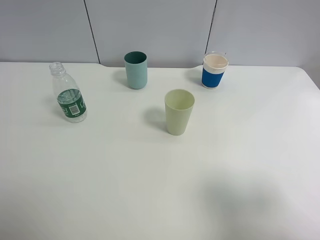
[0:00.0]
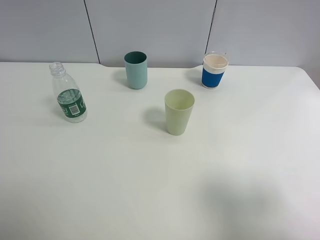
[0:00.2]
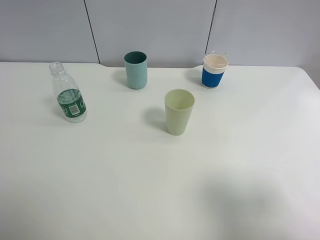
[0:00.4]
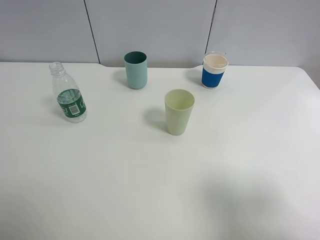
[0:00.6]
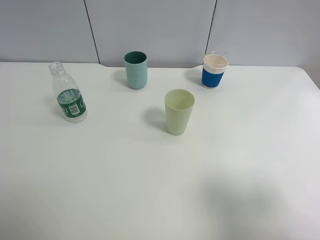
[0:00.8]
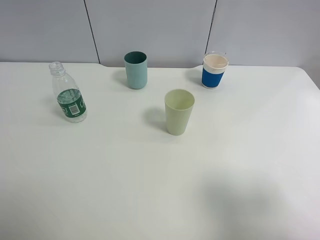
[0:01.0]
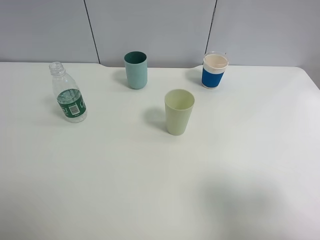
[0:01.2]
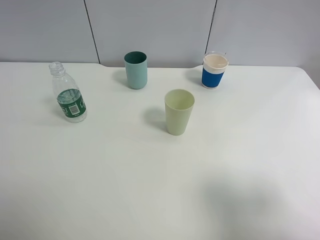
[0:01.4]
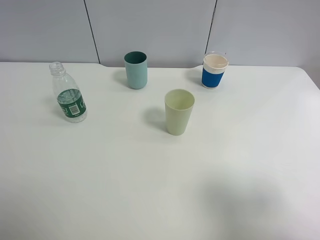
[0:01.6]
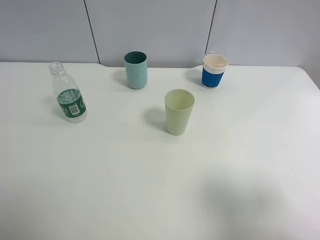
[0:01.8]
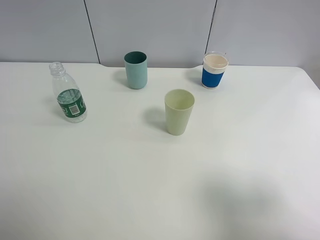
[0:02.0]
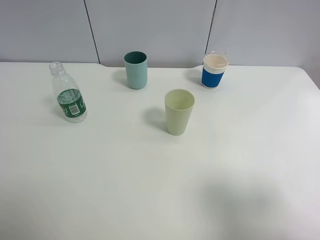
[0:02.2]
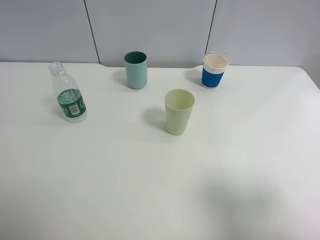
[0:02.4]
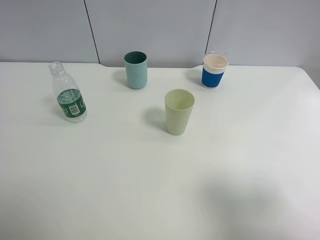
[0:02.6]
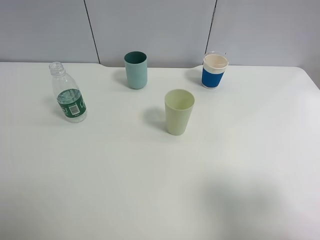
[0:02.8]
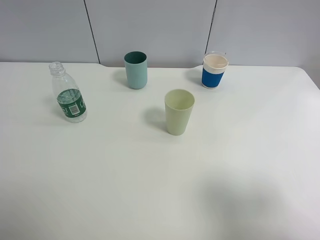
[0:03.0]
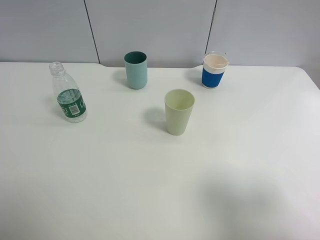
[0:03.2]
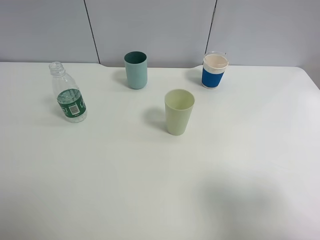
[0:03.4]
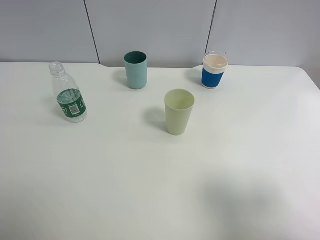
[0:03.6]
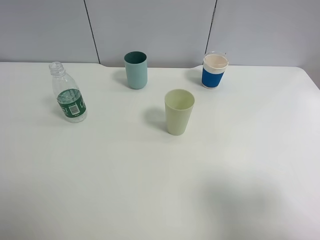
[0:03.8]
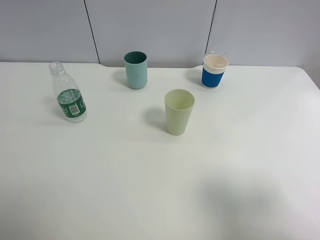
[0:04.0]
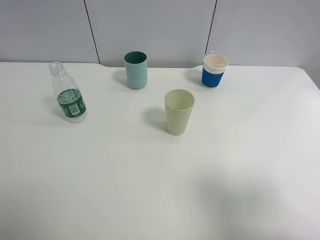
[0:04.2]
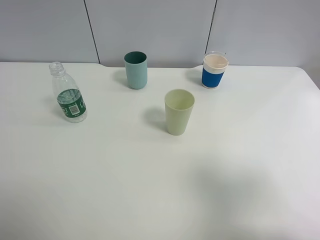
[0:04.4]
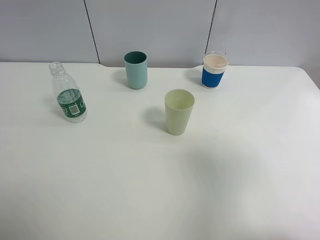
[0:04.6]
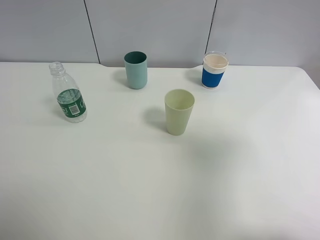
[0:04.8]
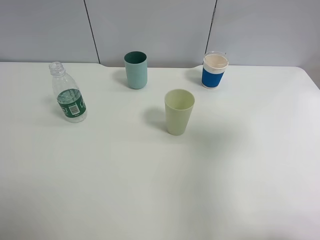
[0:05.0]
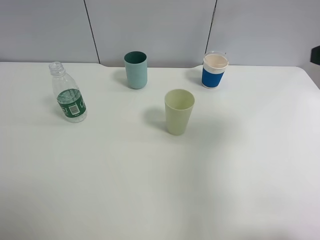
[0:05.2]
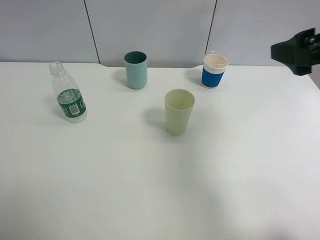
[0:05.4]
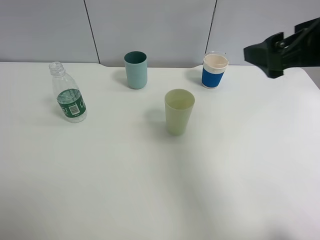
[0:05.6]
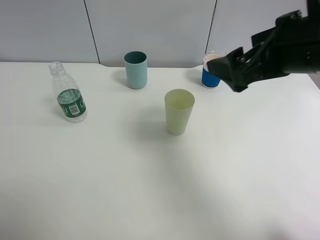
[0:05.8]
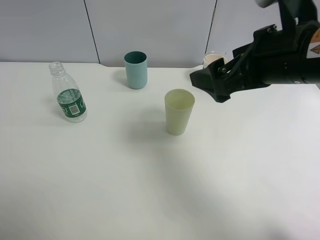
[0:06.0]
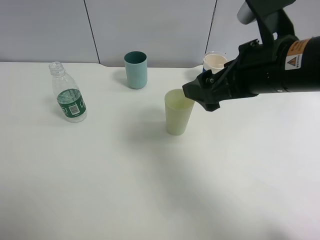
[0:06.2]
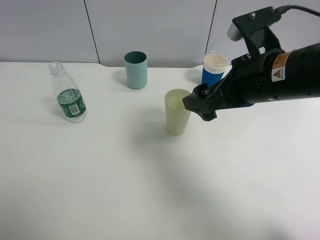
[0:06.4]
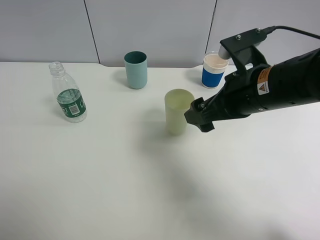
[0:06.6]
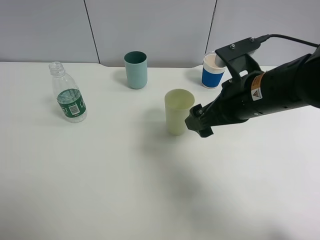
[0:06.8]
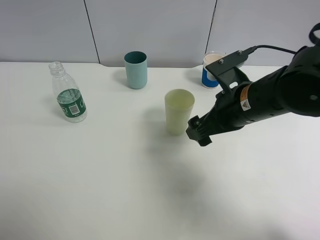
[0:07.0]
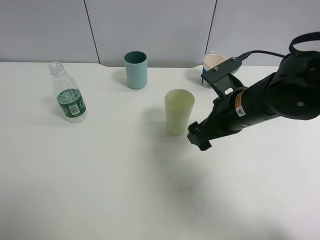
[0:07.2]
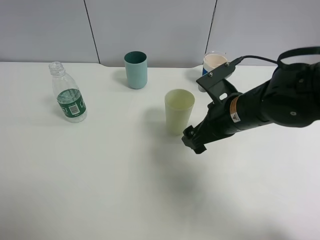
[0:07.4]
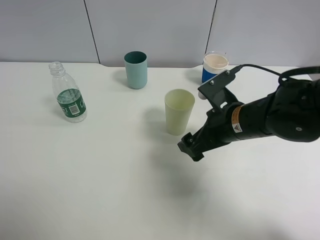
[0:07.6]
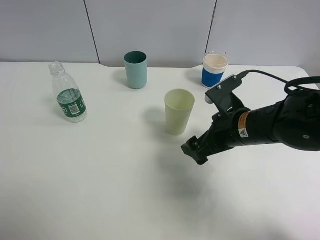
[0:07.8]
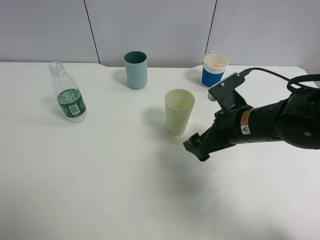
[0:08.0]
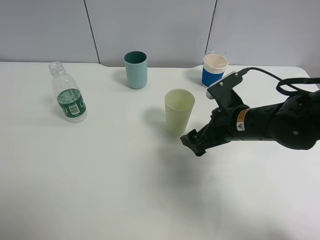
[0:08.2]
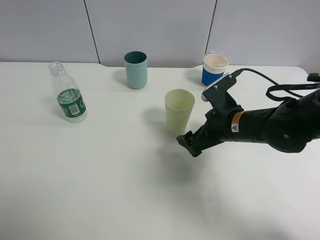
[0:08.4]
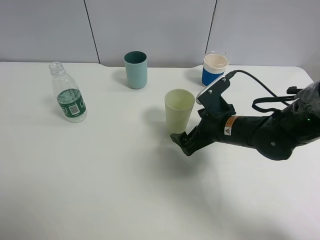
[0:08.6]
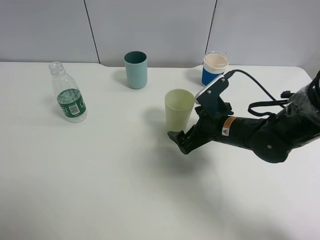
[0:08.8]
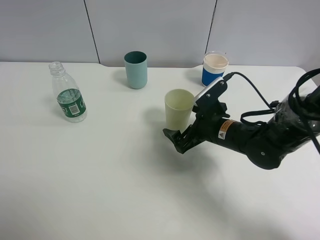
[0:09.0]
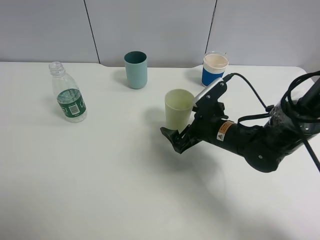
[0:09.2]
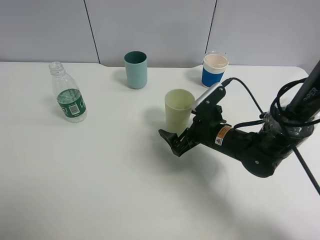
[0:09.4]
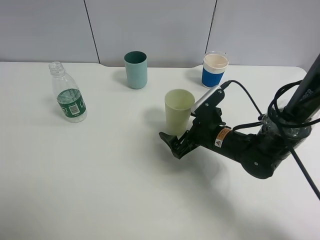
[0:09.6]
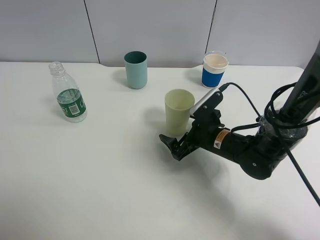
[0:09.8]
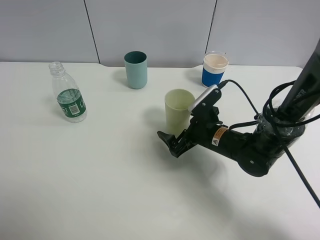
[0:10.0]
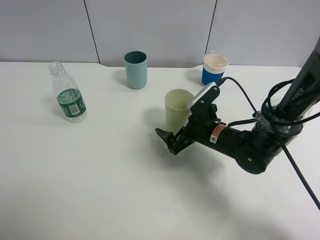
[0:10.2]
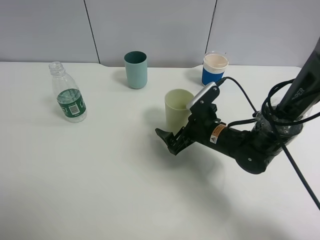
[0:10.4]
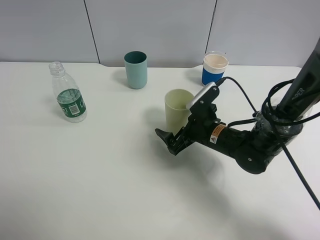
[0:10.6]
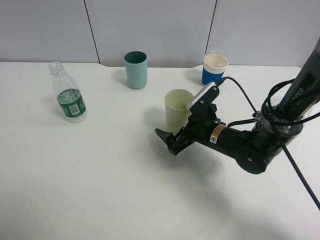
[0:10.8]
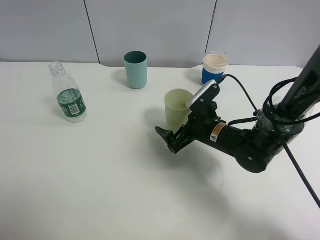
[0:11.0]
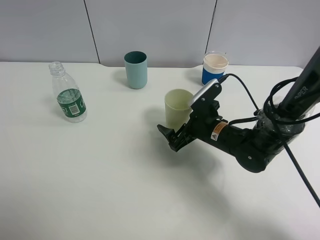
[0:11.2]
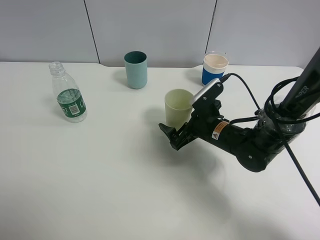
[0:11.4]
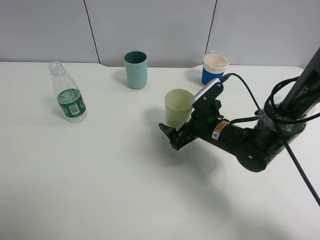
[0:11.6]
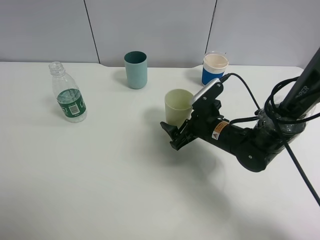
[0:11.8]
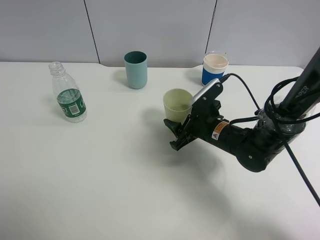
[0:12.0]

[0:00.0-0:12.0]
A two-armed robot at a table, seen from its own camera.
Task of the whole recording: use a clamp to hold the bottle of the drink, pour the beverage into a random cup, then clamp the cup containing the drink and pour the drink into another random cup.
0:04.4 to 0:06.0: The right gripper shifts approximately 20 cm forward and to the left.
0:06.0 to 0:07.6: The right gripper is displaced downward by some 15 cm.
0:07.6 to 0:09.0: The right gripper shifts some 5 cm downward.
0:09.0 to 0:10.4: The grippers make only small movements.
0:10.4 to 0:12.0: The right gripper closes its fingers.

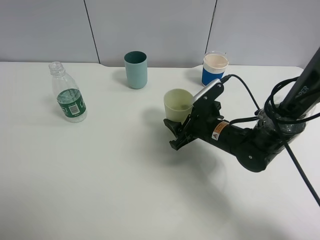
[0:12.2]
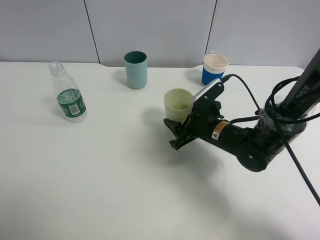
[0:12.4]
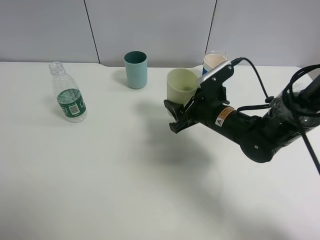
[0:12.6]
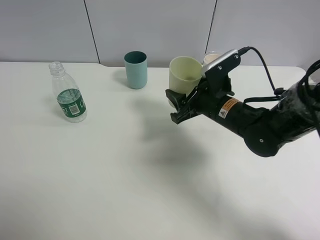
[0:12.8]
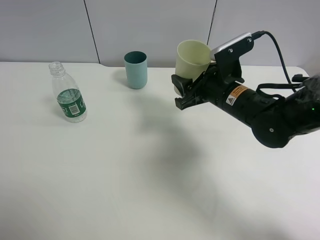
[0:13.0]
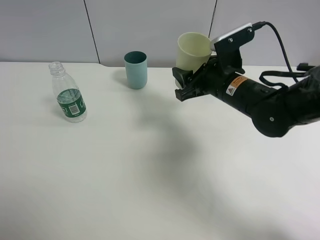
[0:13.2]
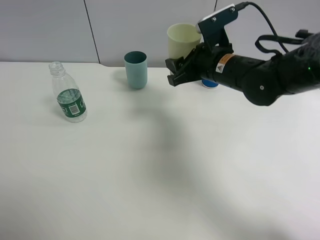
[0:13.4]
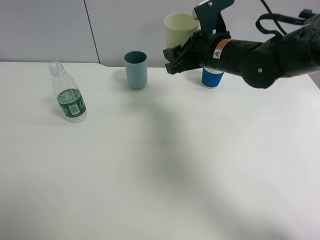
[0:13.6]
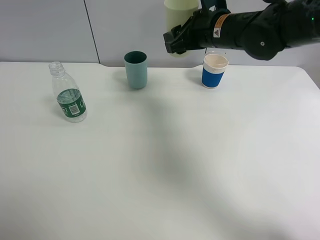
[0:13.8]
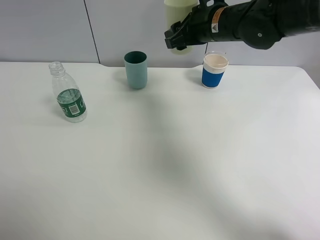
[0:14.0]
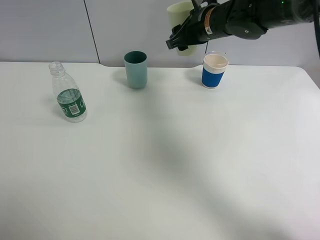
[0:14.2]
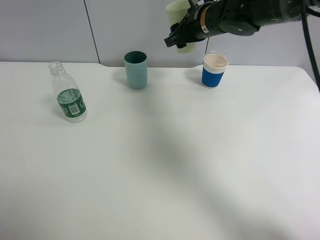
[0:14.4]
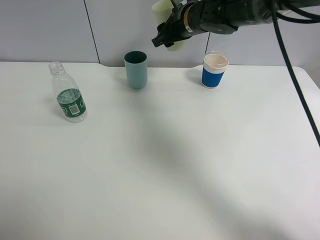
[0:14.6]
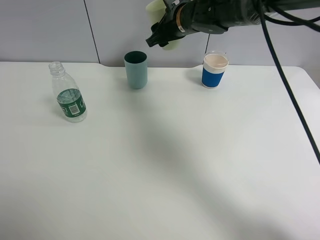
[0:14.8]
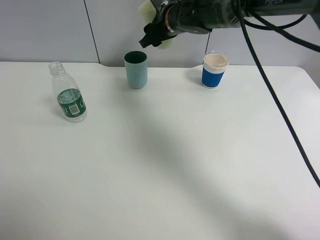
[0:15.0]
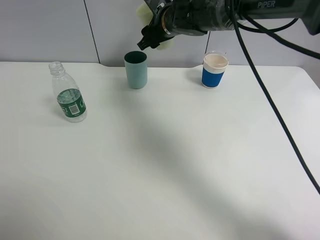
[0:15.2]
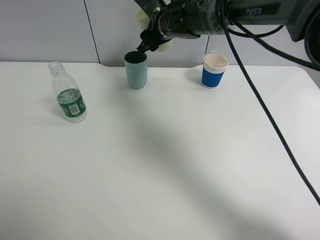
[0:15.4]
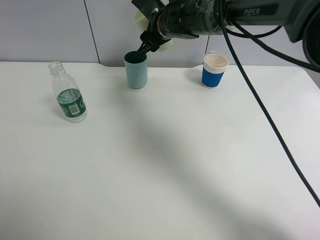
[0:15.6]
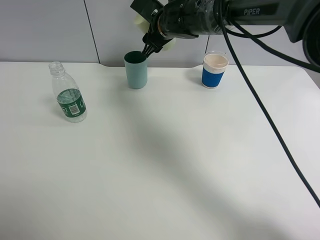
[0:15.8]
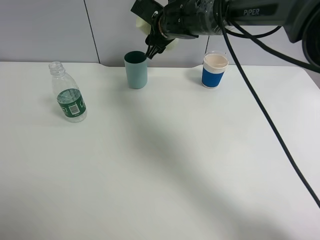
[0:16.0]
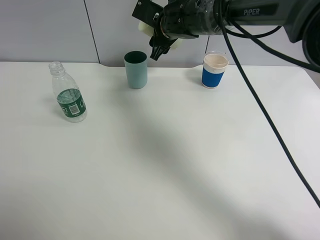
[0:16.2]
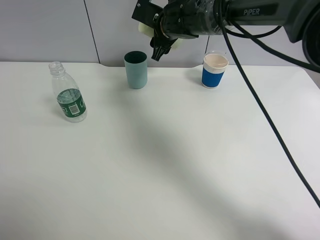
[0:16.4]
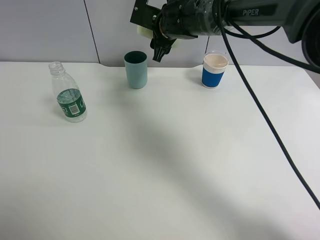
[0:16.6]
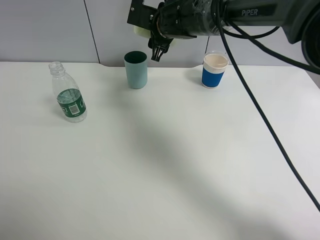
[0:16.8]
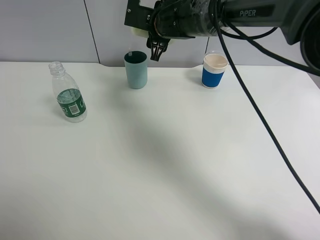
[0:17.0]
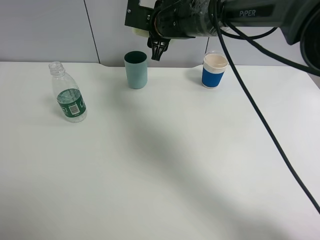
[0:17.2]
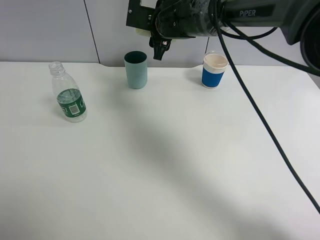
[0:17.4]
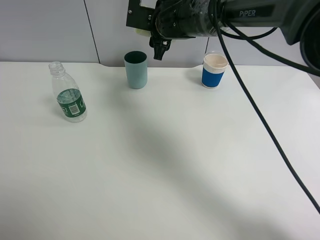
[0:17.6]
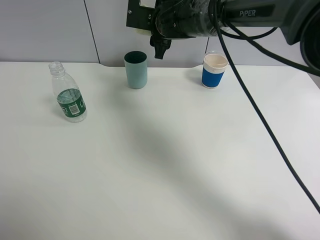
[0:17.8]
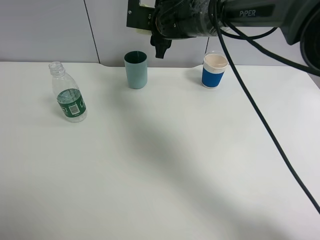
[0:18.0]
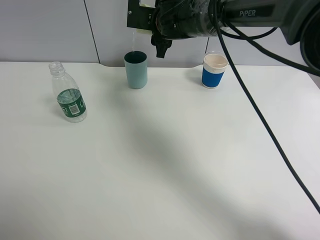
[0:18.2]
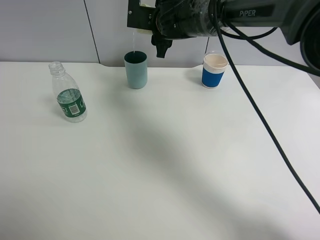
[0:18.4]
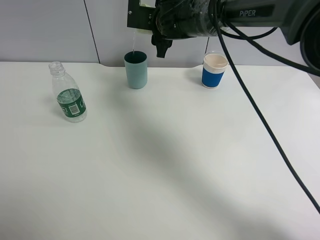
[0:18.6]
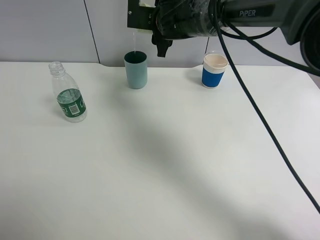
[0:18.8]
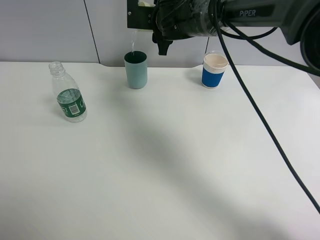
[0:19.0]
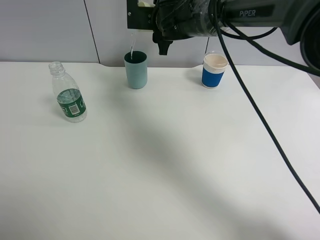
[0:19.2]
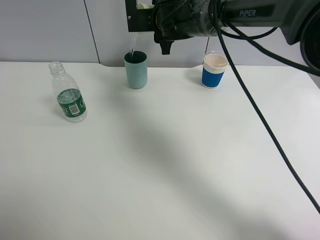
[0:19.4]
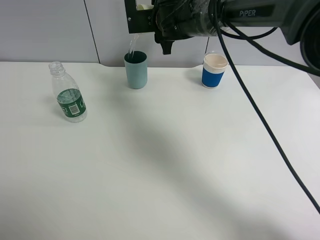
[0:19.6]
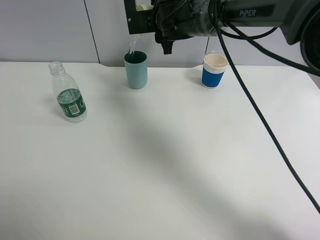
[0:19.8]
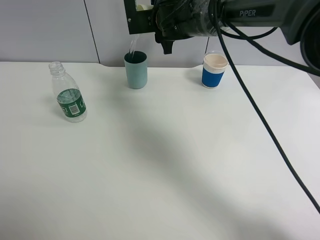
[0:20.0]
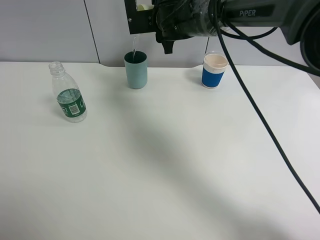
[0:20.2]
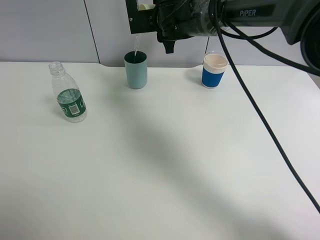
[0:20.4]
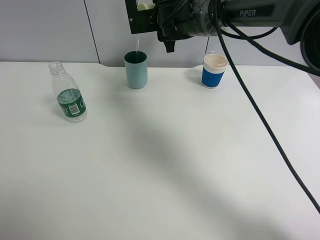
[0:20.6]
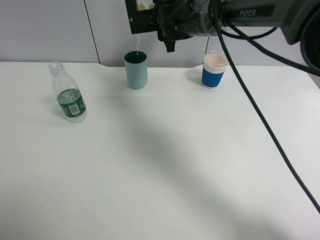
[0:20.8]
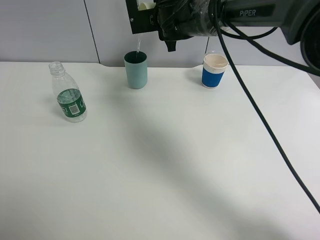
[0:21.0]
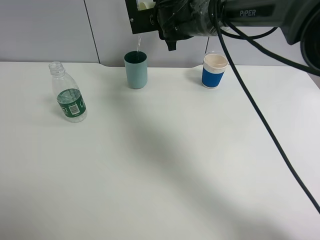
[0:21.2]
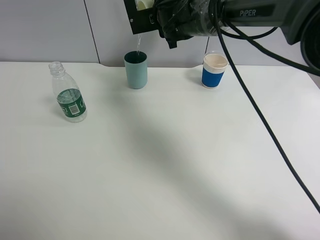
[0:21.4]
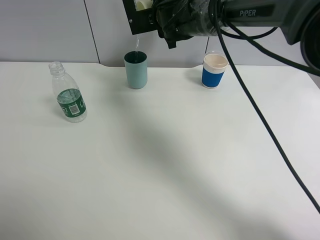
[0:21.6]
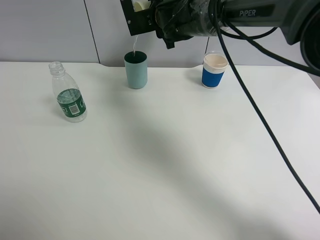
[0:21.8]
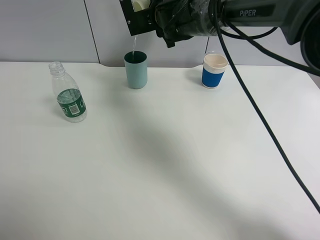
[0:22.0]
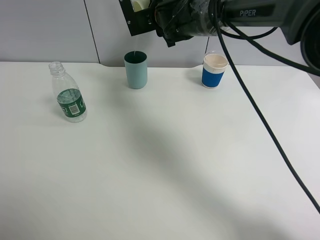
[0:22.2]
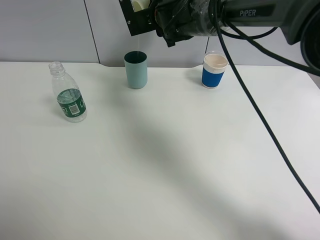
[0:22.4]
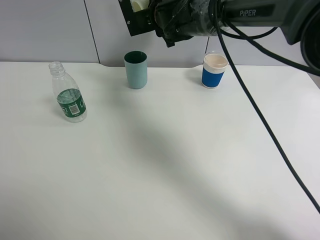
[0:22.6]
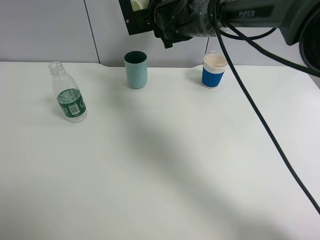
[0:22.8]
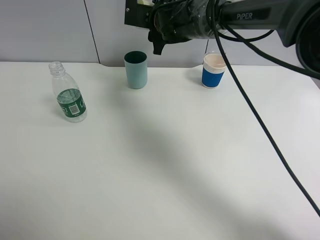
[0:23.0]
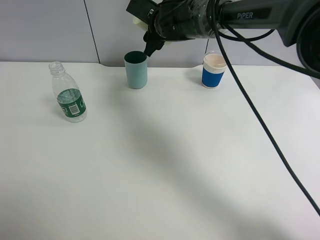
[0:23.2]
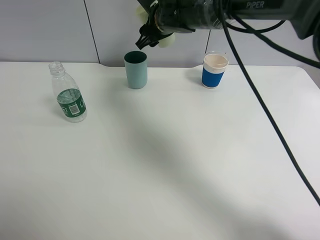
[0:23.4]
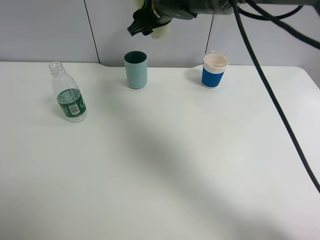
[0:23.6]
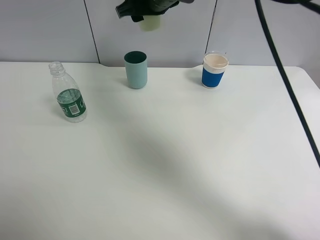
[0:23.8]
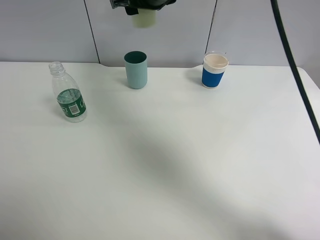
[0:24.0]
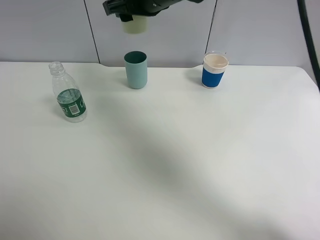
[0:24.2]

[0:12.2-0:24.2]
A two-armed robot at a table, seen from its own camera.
Task of the whole recording: use a clamp to hold the bottle of the drink, pour the beverage into a random cup, then clamp the cup containing the drink and pour the drink into another random cup.
Step, 0:12.6 to 0:23.2: Pour water into the blue plastic cup with right gripper.
0:12.2 to 0:13.8: The right gripper goes about 20 cm upward and forward.
0:13.8 to 0:15.2: The right gripper heads to the left and forward, covering roughly 10 cm.
0:16.6 to 0:18.2: The grippers move only a little.
0:22.6 to 0:24.2: The right gripper shifts roughly 10 cm backward and upward.
